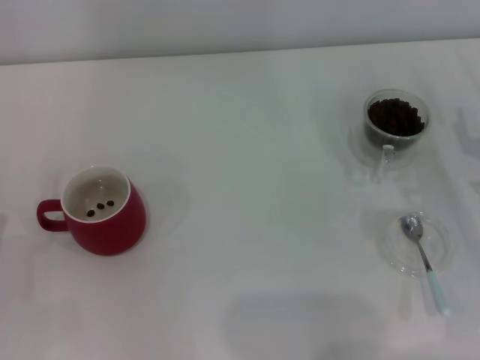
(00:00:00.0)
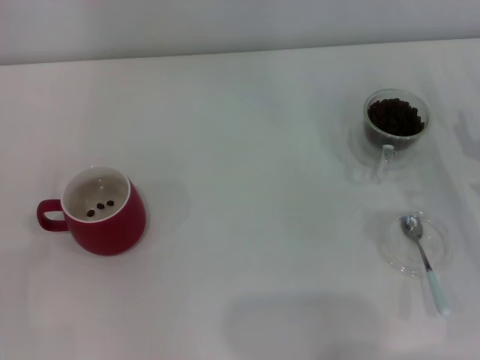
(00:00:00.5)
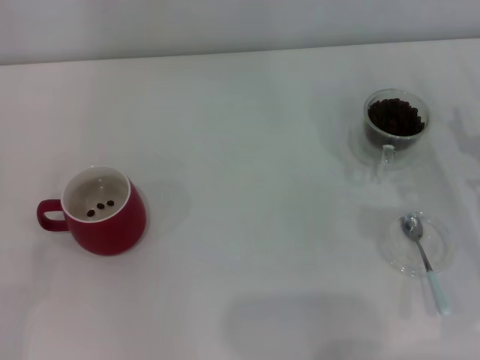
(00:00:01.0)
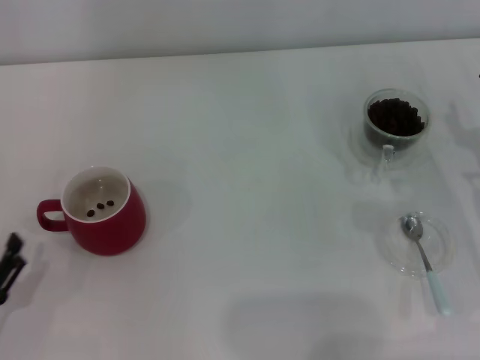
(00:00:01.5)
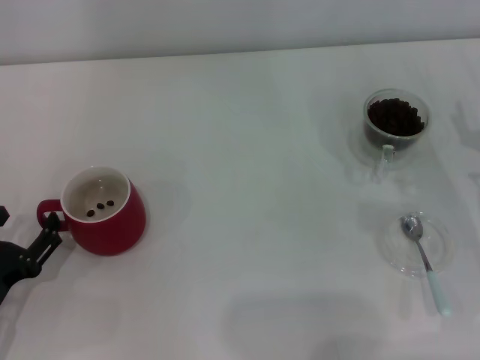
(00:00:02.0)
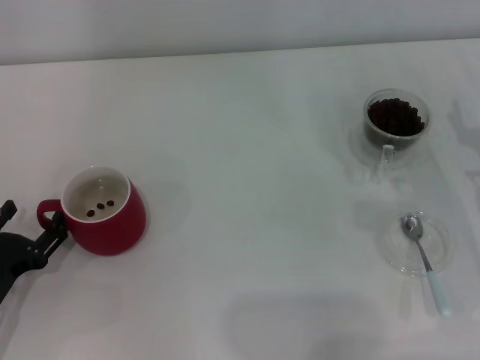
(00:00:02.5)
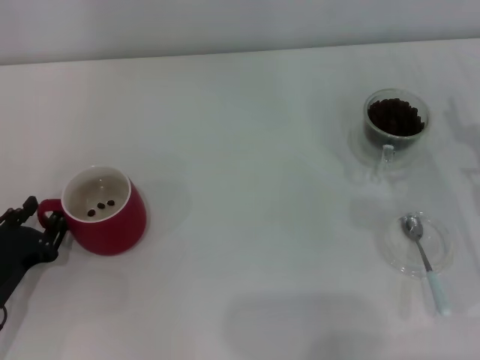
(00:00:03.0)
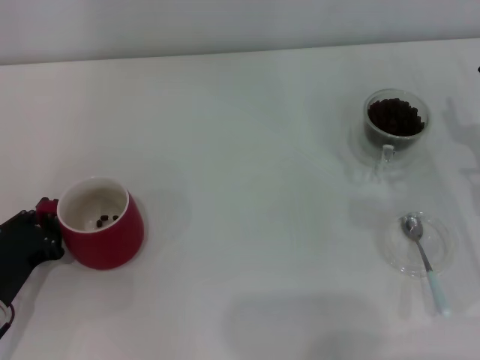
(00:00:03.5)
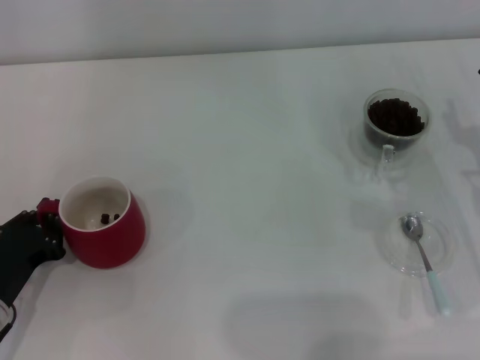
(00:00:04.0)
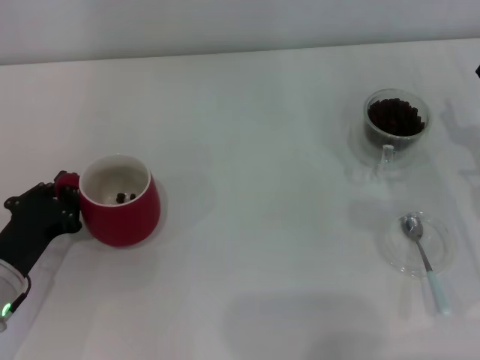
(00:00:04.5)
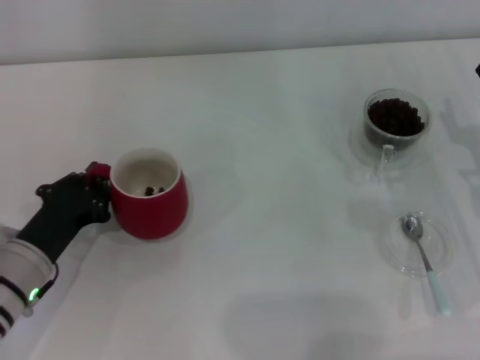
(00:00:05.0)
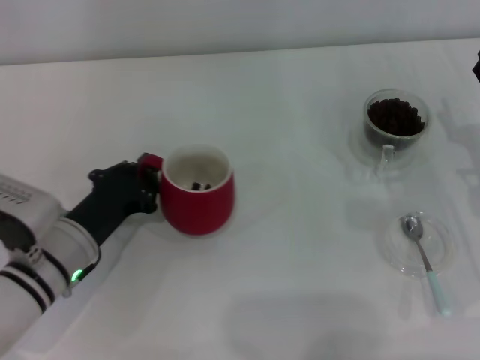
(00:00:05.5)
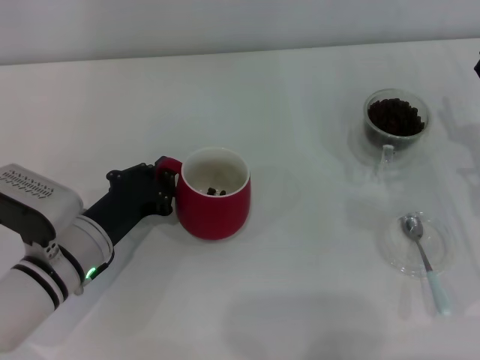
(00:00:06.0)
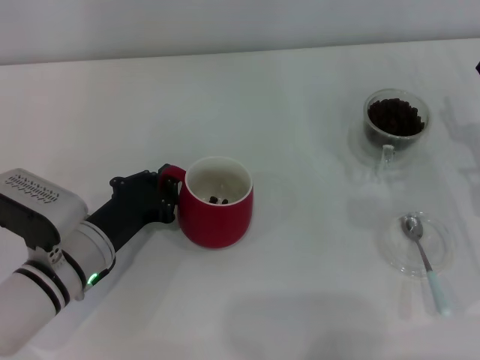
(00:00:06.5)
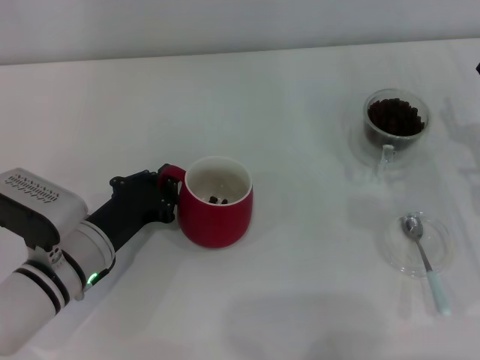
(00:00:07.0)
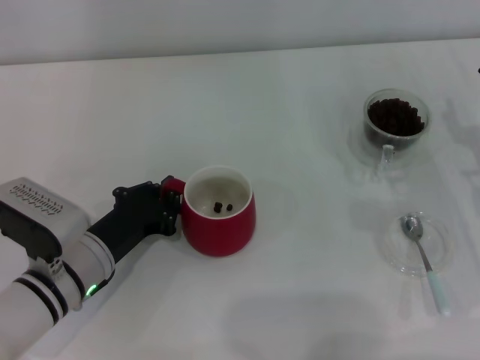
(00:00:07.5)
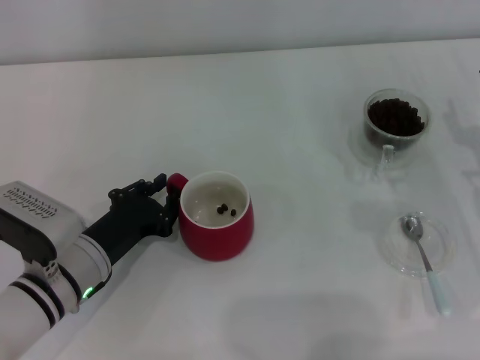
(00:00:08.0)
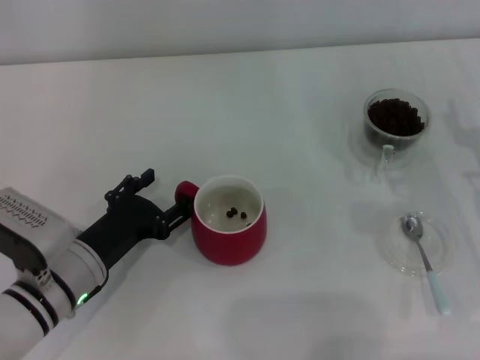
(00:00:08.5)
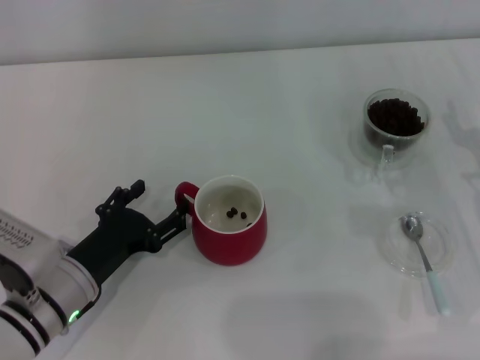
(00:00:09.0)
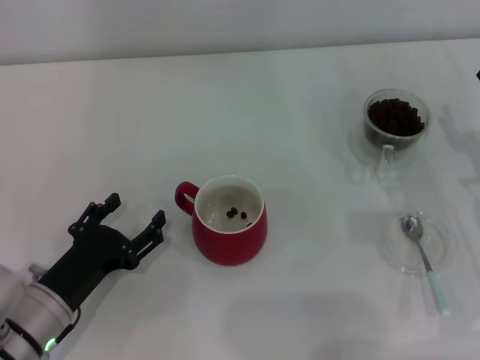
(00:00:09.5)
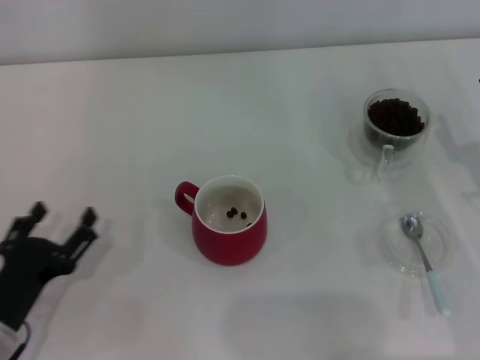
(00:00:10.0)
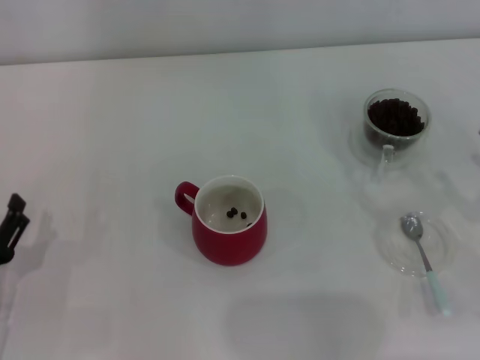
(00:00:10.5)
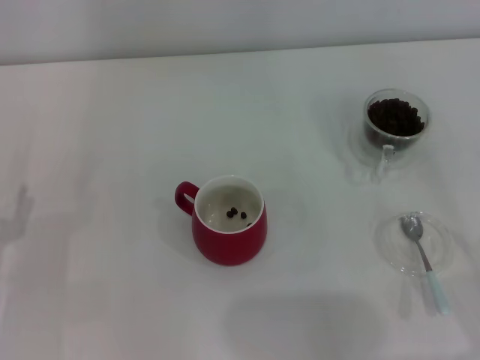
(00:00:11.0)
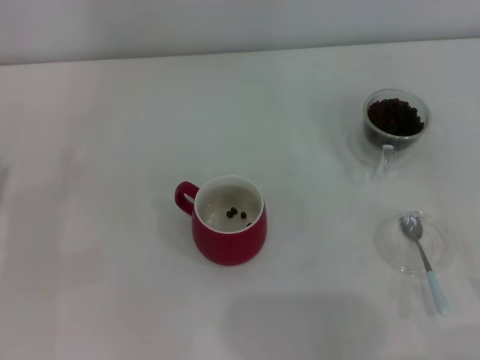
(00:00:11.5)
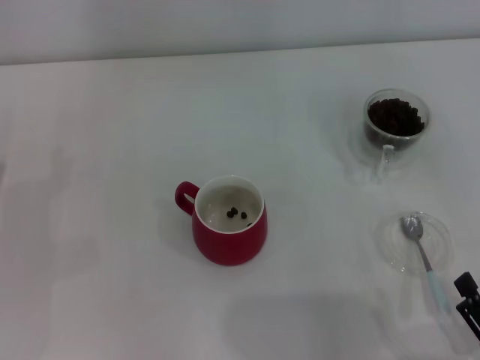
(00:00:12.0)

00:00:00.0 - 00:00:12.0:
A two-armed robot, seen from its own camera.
Task of the whole recording: Use a blue spoon to take out the coffee beans from the glass and pour them into the red cup.
Step, 00:00:00.0 - 00:00:09.0: Move the cup to the center of view with the left gripper.
00:00:02.0 - 00:00:04.0: The left gripper closes its fingers.
00:00:04.0 - 00:00:06.0: The left gripper travels to the right and forward by some 10 cm.
00:00:06.0 - 00:00:08.0: The grippers move only a little.
00:00:08.0 - 00:00:10.0: The left gripper goes approximately 10 cm backward and to the left, and opens up.
00:00:10.0 - 00:00:12.0: The right gripper travels backward by about 20 cm; the left gripper travels forward and to the left by approximately 10 cm.

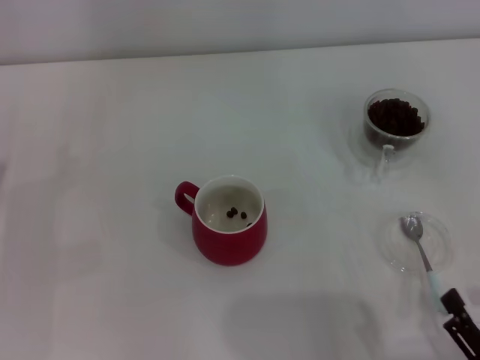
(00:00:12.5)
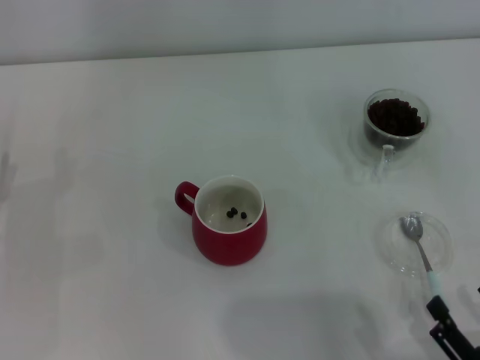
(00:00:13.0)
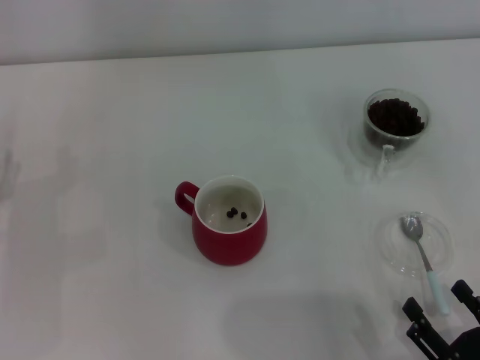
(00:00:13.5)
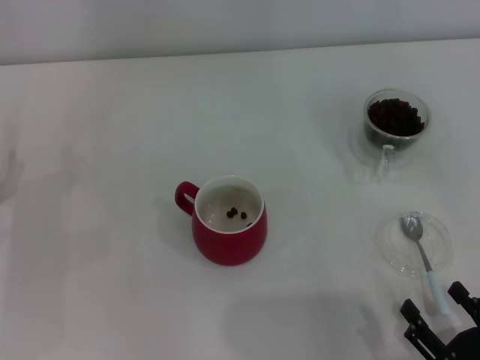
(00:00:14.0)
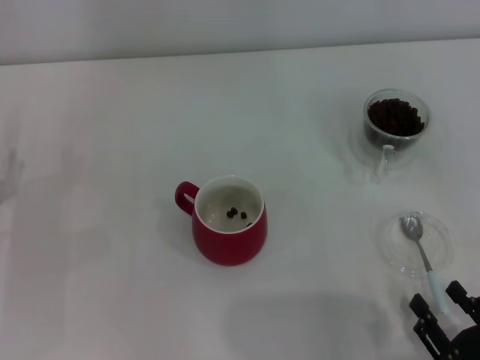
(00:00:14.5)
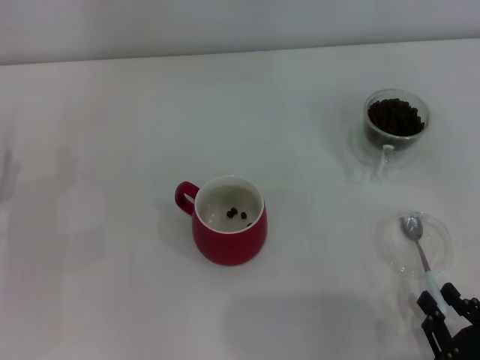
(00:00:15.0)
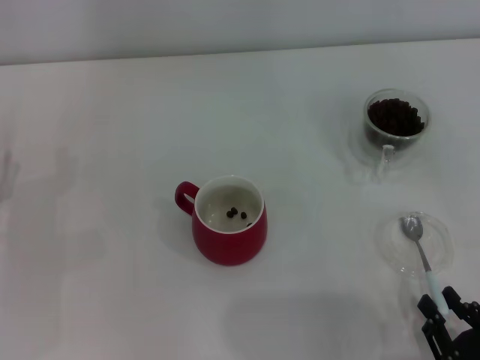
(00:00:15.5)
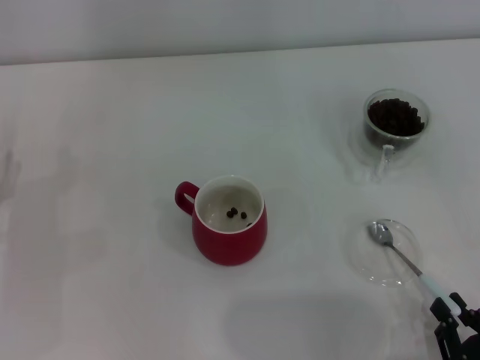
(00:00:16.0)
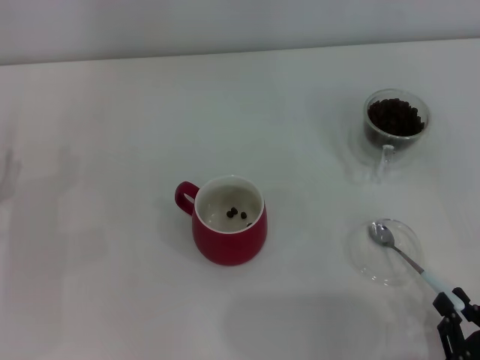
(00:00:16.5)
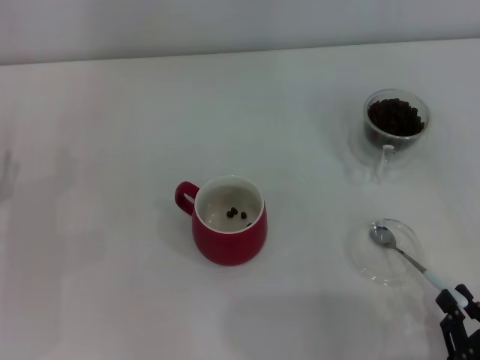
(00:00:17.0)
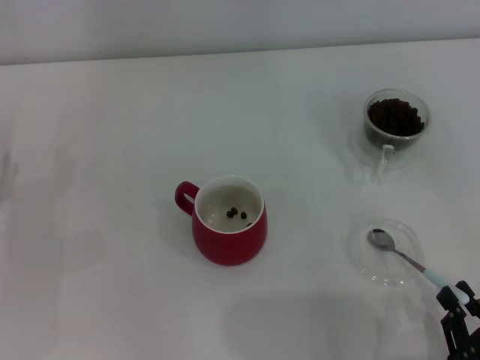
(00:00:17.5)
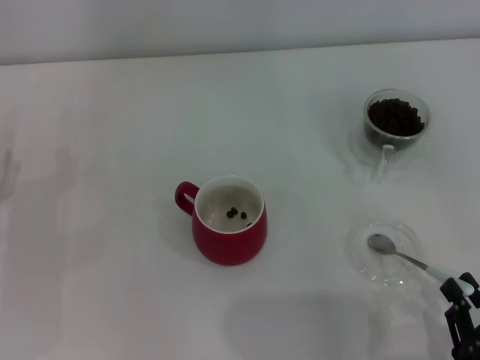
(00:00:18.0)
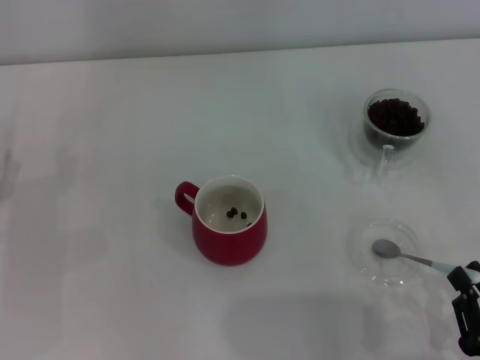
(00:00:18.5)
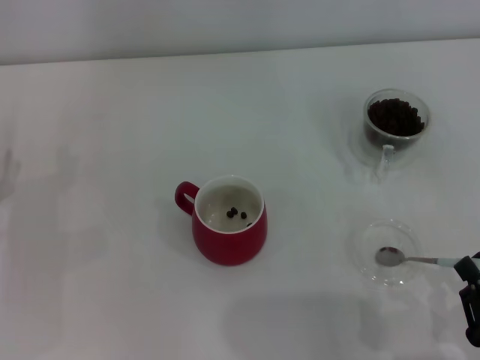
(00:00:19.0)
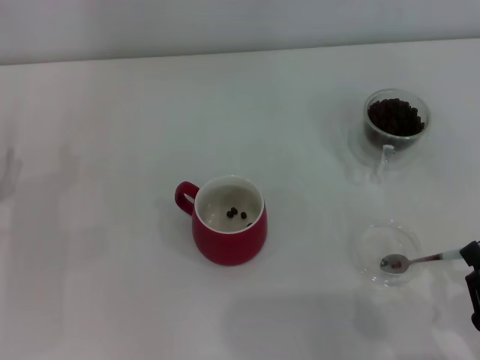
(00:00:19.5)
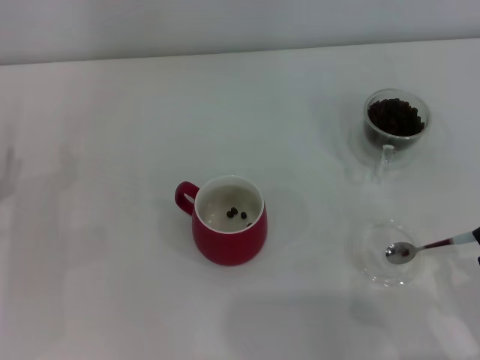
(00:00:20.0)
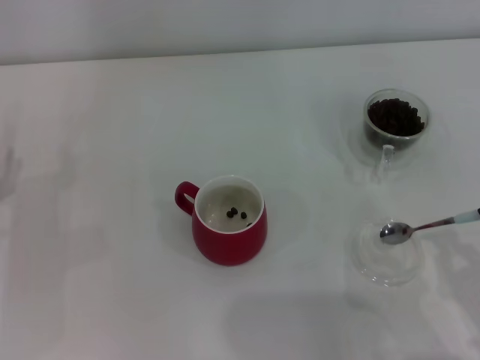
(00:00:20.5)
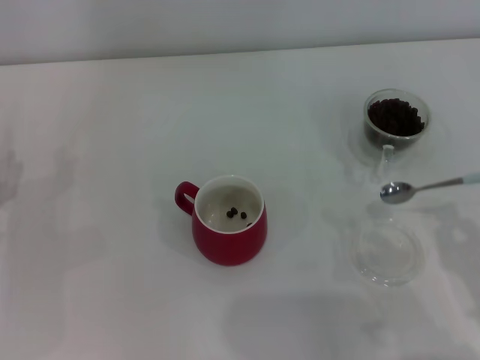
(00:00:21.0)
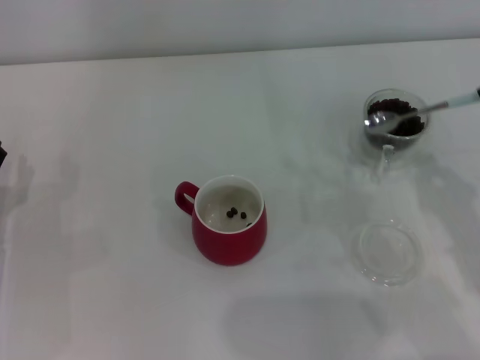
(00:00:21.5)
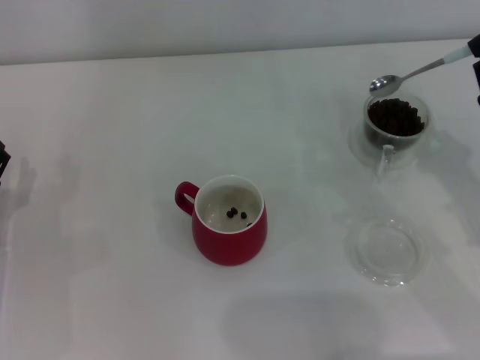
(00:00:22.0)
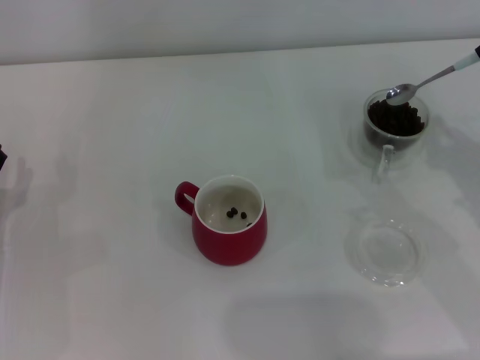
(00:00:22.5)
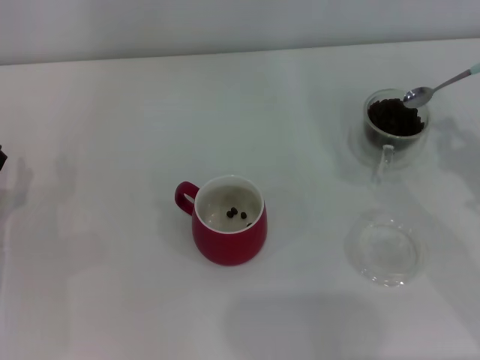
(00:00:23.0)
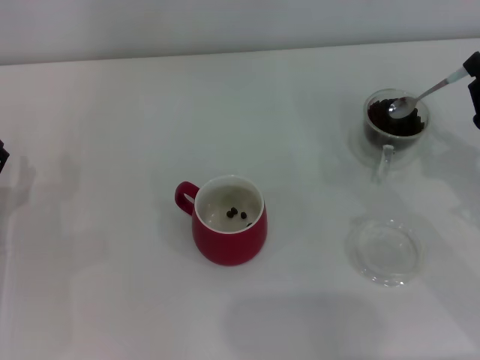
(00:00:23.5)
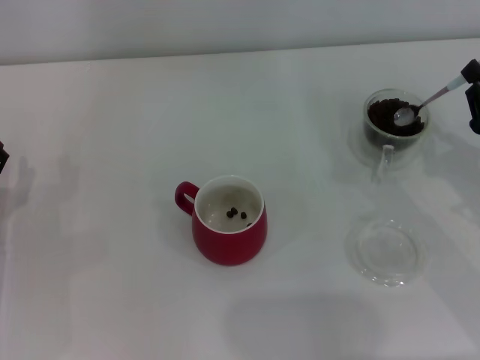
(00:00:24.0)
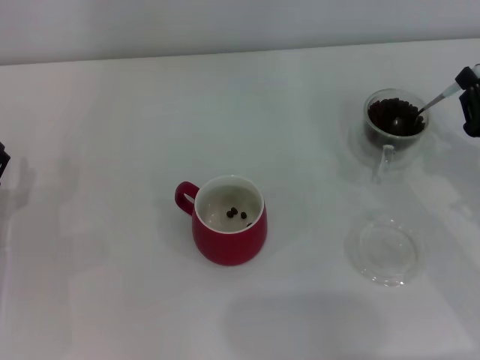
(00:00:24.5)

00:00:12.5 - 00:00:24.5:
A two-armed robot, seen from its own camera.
Task of the whole recording: Use a blue spoon to take out the coffee beans from the glass and pour them into the red cup.
Step, 00:00:12.5 - 00:00:20.0: Pick up the spoon with the right gripper.
00:00:12.5 - 00:00:14.5: The grippers make only small movements.
00:00:14.5 - 00:00:16.5: The right gripper closes up.
00:00:16.5 - 00:00:18.5: There are only small adjustments of the grippers.
00:00:18.5 - 00:00:20.5: The grippers move only a little.
00:00:20.5 - 00:00:22.5: The right gripper moves forward, approximately 15 cm.
00:00:22.5 - 00:00:24.5: The grippers stay close to where they were, moving slightly.

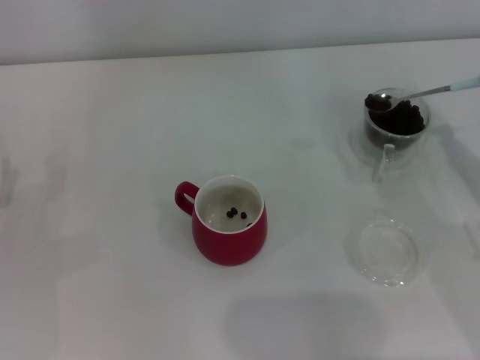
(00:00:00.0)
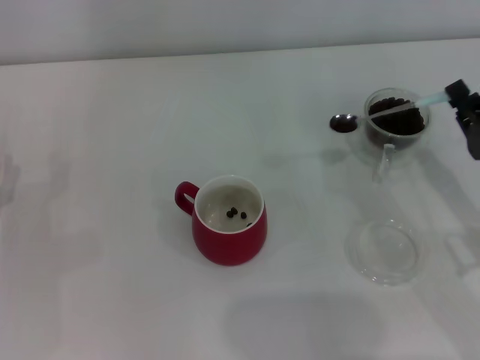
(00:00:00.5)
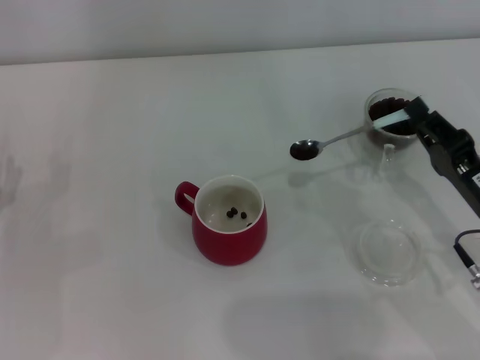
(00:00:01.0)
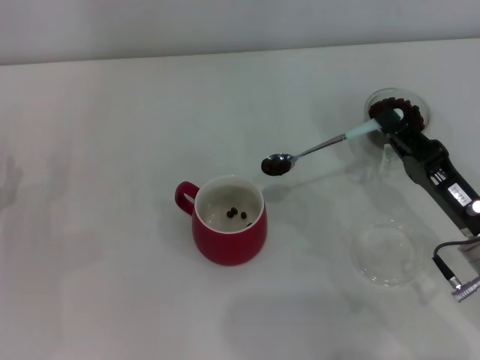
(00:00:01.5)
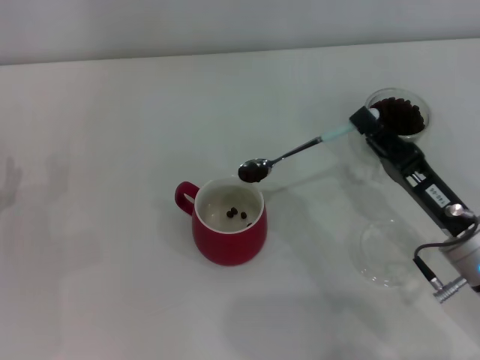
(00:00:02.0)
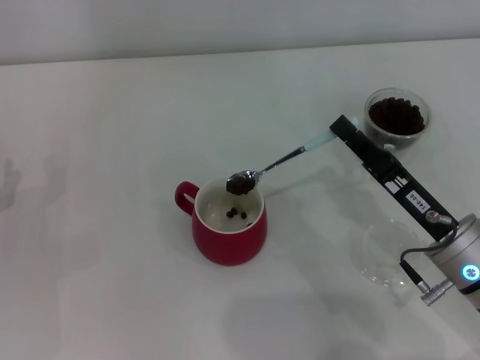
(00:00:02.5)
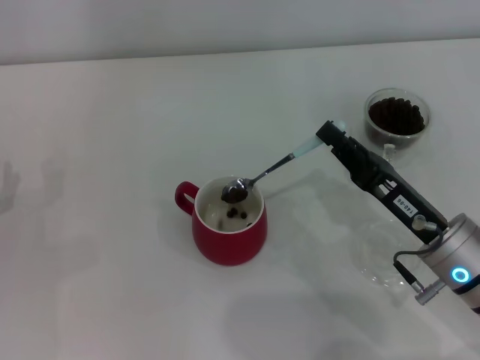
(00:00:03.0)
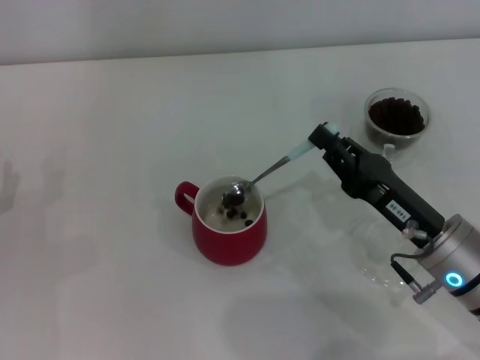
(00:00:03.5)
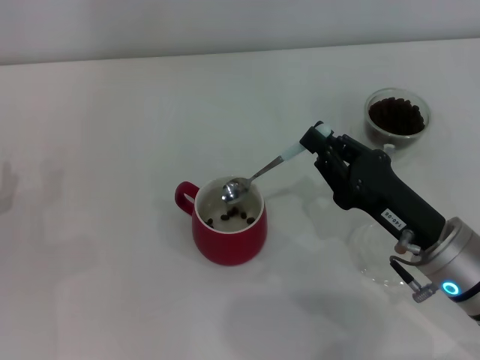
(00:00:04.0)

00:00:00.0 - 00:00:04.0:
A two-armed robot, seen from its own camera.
Task of the whole recording: Use a blue spoon to take out the coffee beans from the glass and pour them into the red cup.
00:00:00.0 - 00:00:02.0: The right gripper travels to the left by approximately 10 cm.
